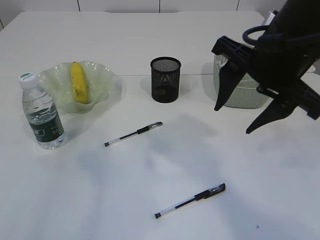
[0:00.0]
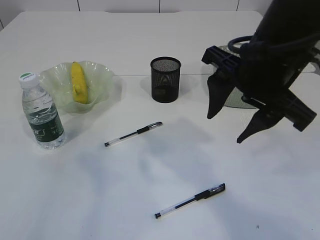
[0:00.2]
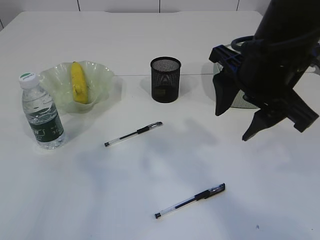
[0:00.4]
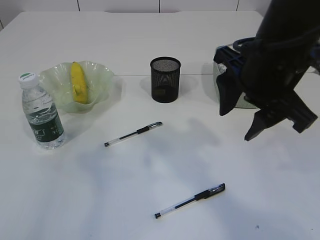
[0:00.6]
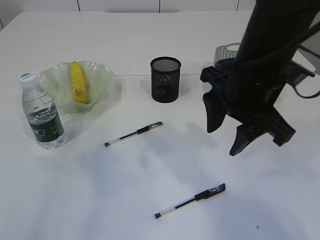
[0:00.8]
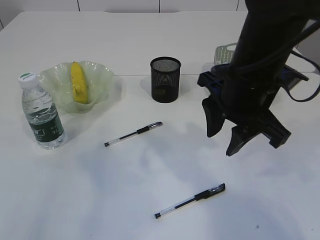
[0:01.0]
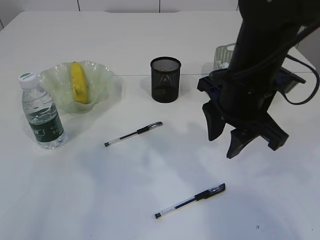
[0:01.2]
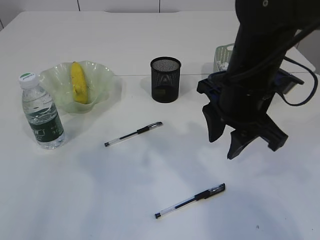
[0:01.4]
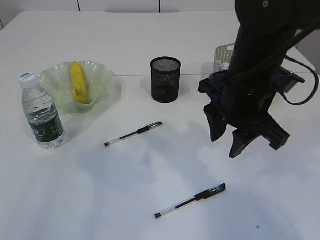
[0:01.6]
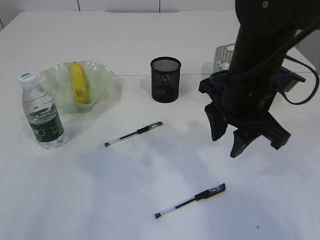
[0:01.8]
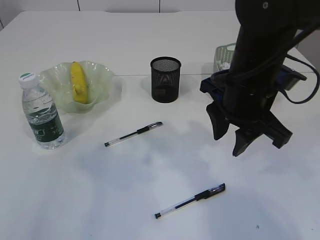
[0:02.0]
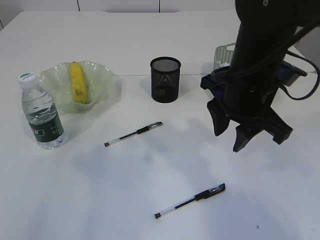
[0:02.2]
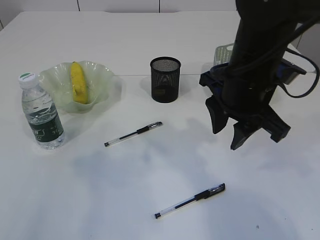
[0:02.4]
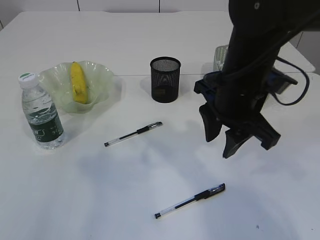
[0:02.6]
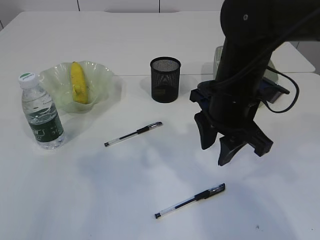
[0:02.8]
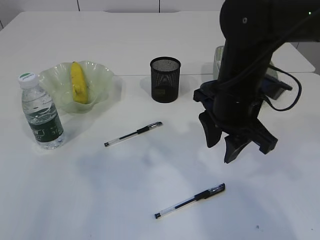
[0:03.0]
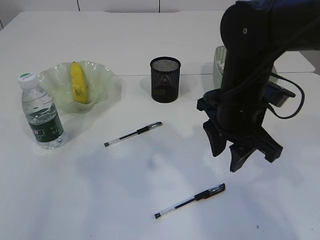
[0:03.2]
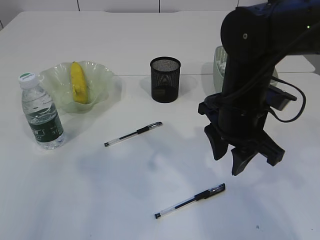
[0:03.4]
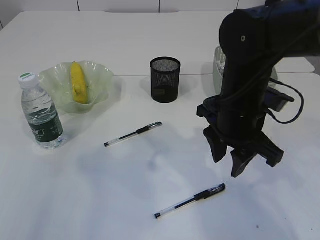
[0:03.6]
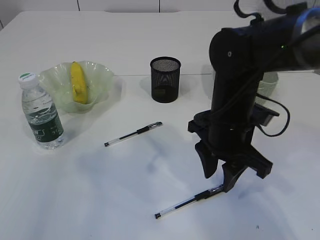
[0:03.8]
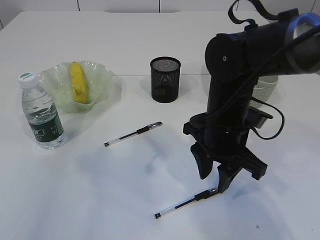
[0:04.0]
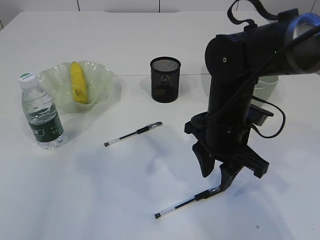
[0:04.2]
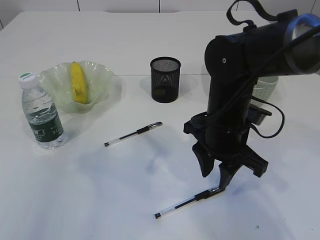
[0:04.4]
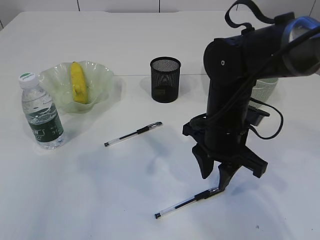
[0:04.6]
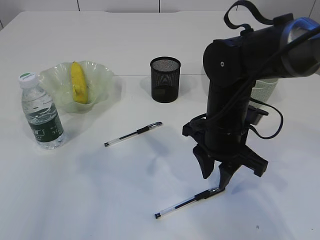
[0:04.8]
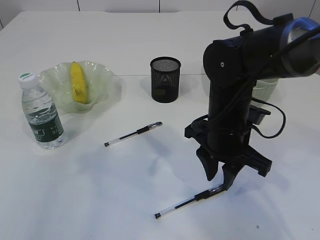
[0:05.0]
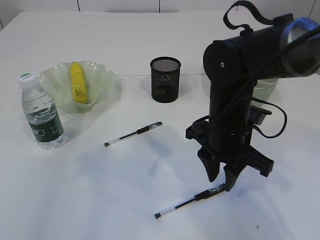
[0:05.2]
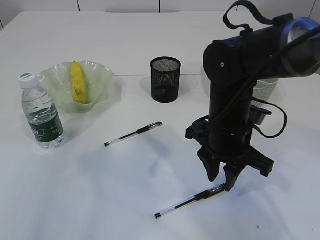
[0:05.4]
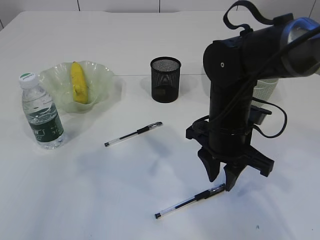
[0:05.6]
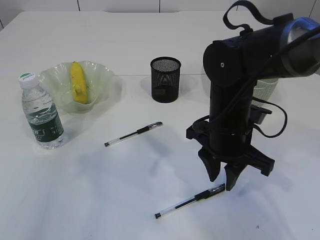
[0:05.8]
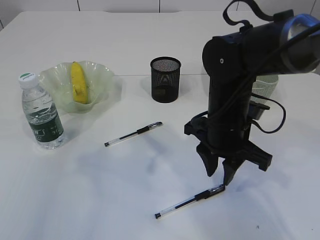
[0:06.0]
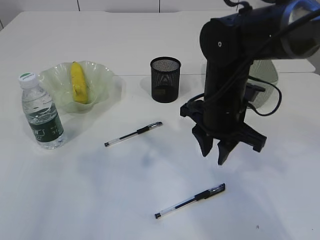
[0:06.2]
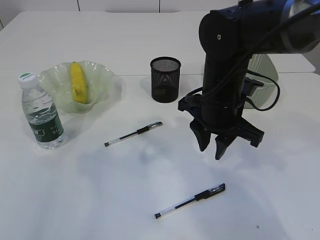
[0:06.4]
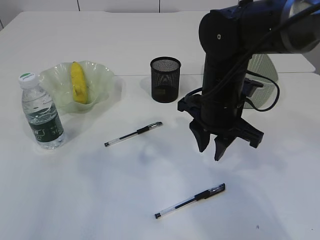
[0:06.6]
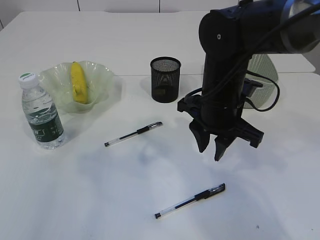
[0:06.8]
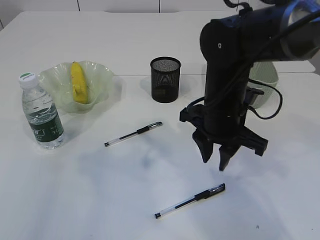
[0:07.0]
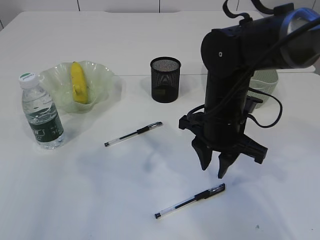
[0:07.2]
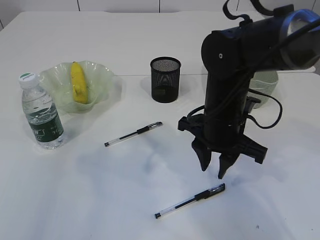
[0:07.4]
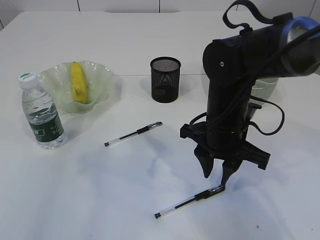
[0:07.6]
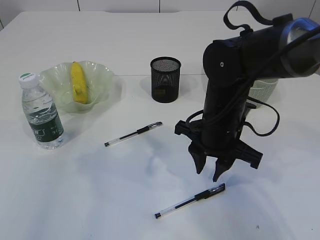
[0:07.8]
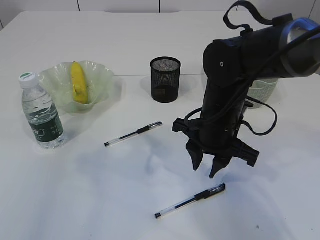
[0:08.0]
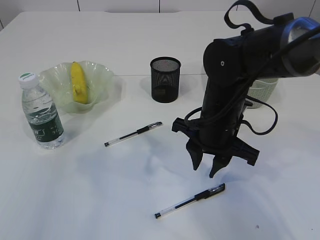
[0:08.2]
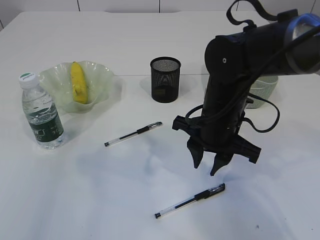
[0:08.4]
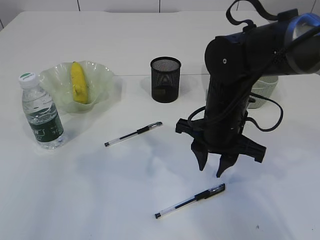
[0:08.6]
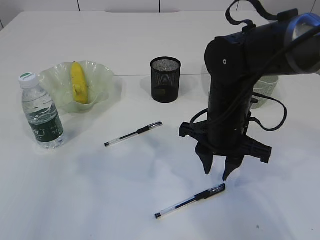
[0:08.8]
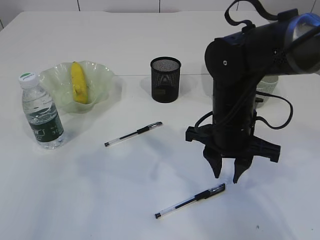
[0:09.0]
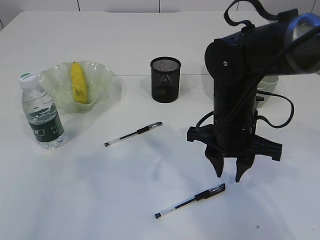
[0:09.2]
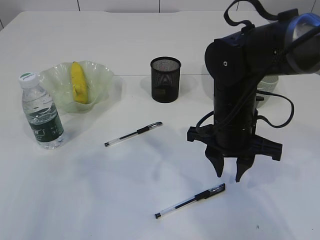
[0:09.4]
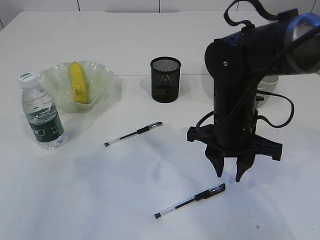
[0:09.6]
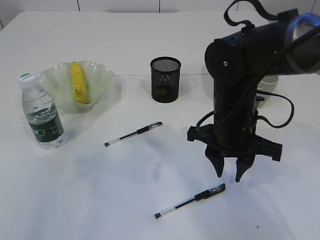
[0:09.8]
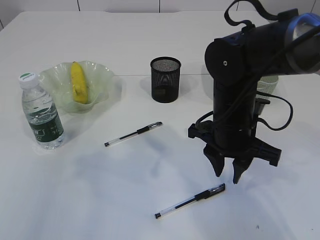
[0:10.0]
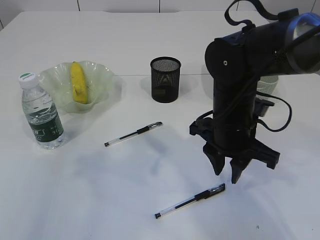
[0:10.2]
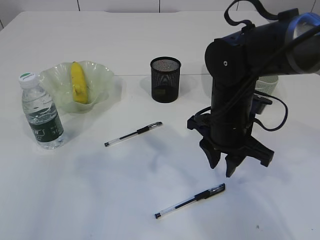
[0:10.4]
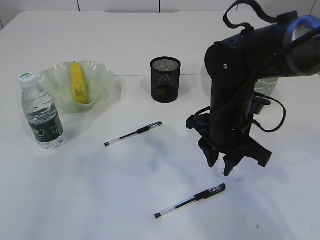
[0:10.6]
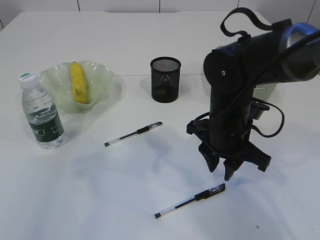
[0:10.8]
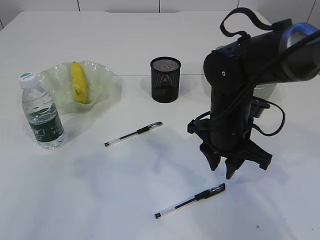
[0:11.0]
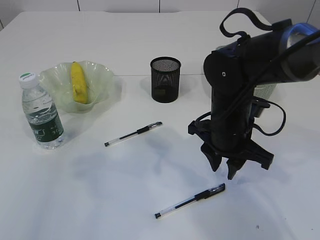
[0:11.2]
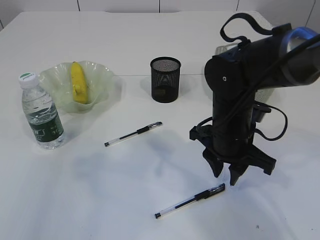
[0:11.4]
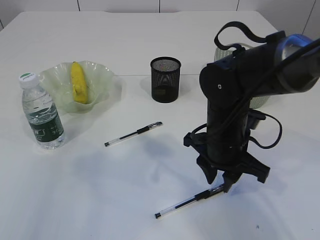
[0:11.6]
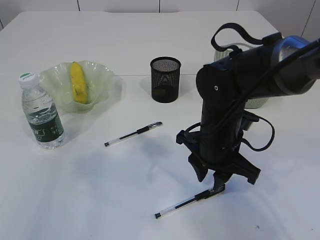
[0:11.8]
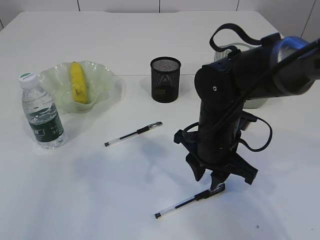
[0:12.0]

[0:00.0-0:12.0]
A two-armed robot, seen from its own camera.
0:00.0 to 0:01.6: The right gripper is displaced downward by approximately 5 cm.
0:01.6 to 0:03.0: There are only small adjustments of the grippers.
0:03.0 to 0:04.4: The right gripper is displaced downward by some 5 cm.
0:04.4 to 0:07.6: The grippers stay close to where they were, moving slightly.
0:07.6 to 0:12.0: There are only small adjustments of the grippers.

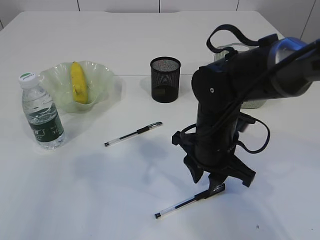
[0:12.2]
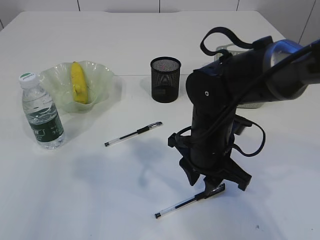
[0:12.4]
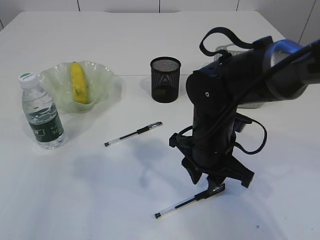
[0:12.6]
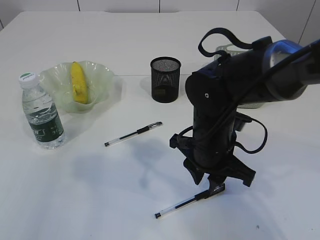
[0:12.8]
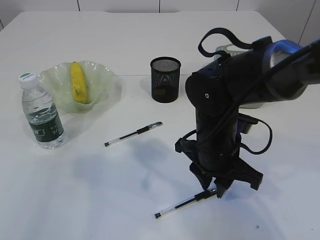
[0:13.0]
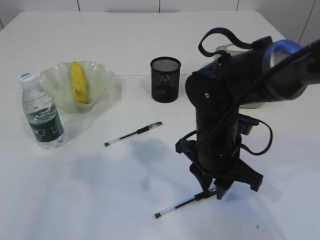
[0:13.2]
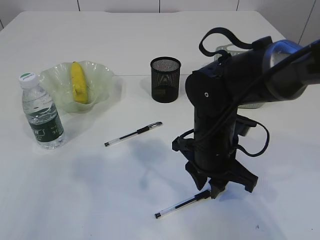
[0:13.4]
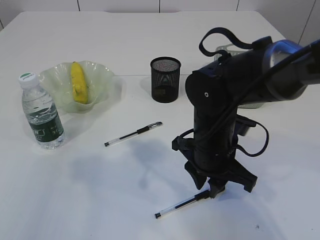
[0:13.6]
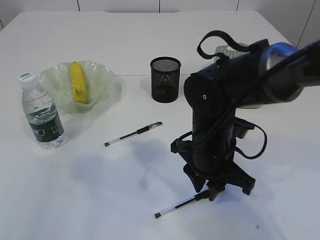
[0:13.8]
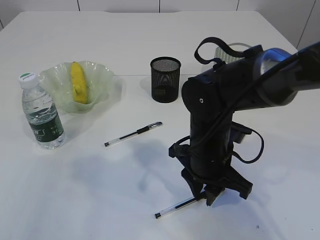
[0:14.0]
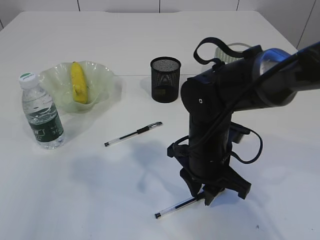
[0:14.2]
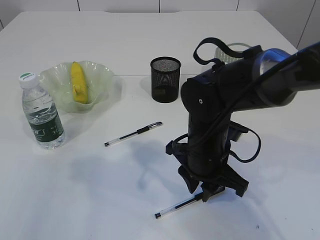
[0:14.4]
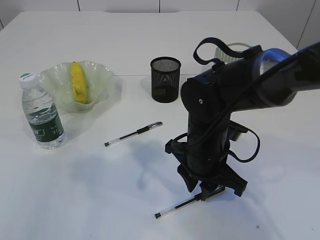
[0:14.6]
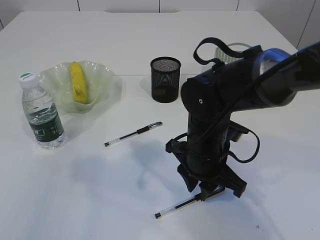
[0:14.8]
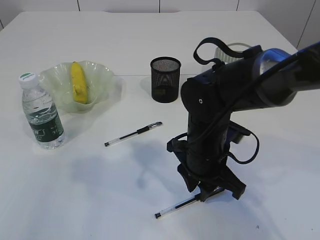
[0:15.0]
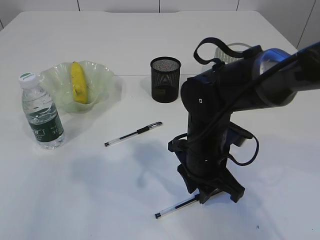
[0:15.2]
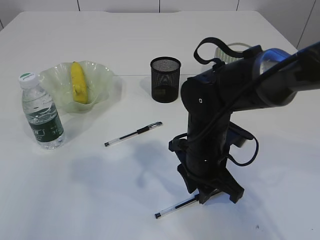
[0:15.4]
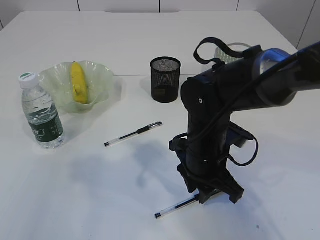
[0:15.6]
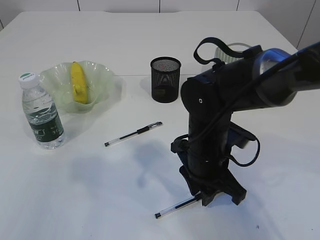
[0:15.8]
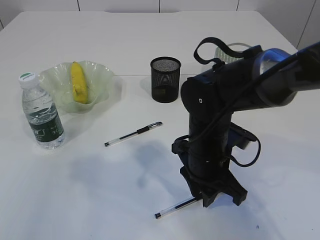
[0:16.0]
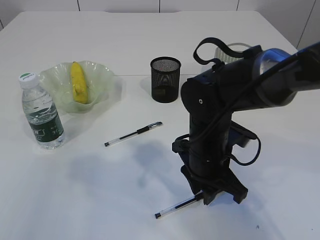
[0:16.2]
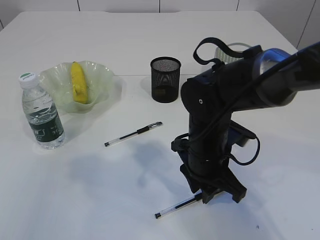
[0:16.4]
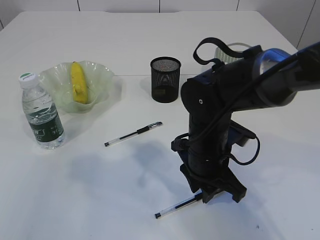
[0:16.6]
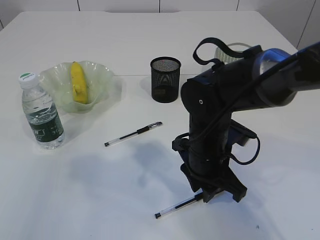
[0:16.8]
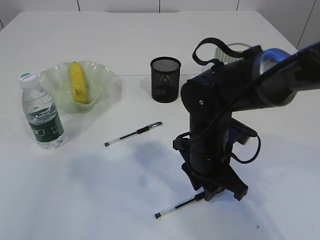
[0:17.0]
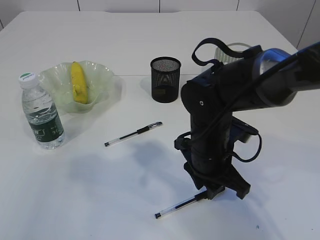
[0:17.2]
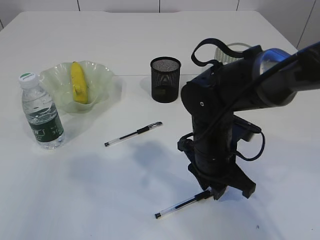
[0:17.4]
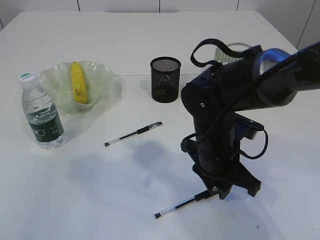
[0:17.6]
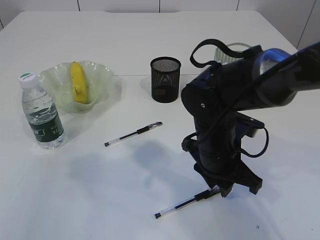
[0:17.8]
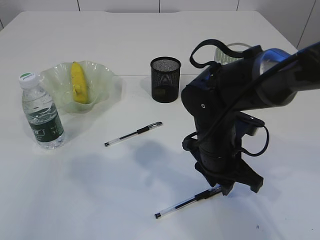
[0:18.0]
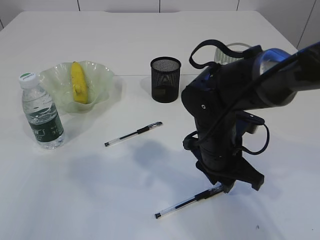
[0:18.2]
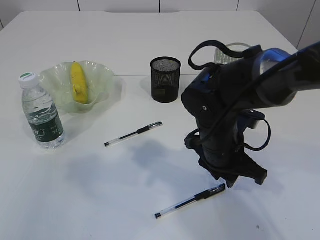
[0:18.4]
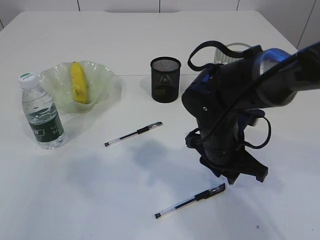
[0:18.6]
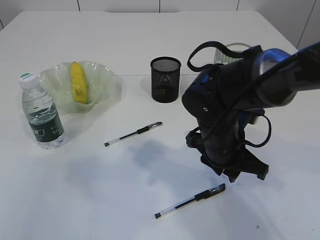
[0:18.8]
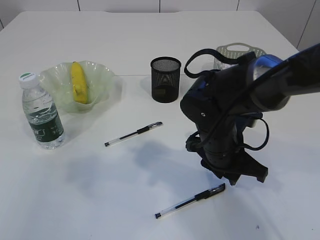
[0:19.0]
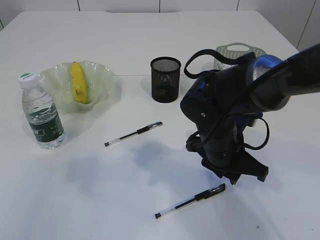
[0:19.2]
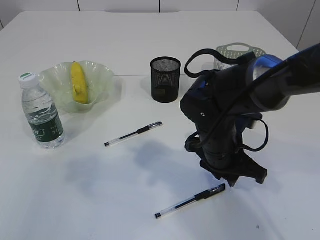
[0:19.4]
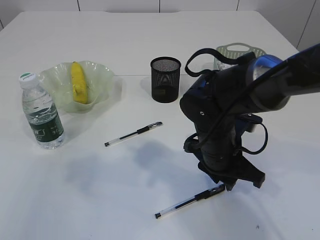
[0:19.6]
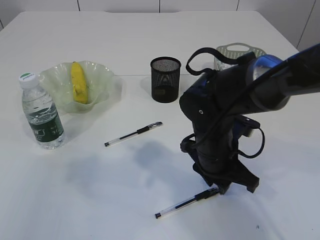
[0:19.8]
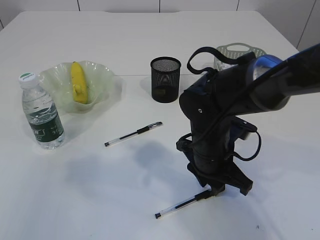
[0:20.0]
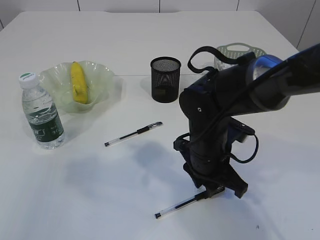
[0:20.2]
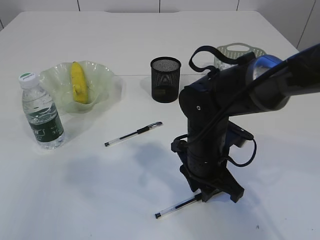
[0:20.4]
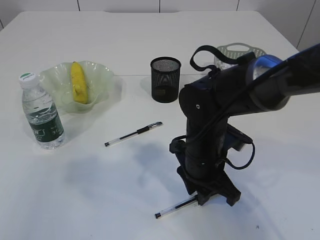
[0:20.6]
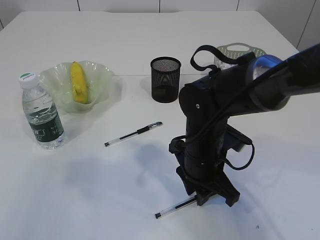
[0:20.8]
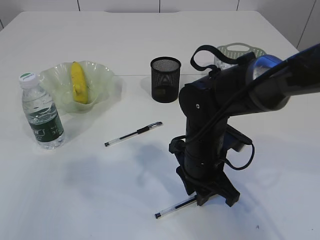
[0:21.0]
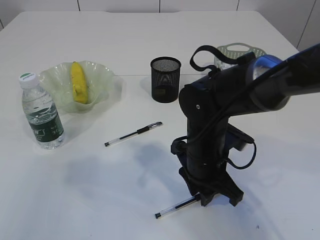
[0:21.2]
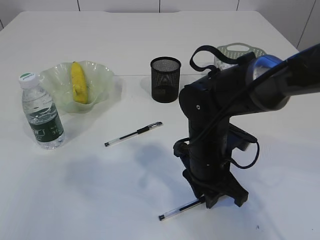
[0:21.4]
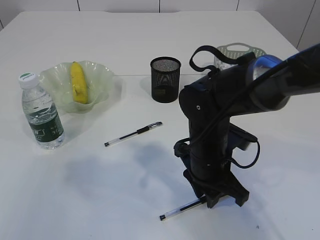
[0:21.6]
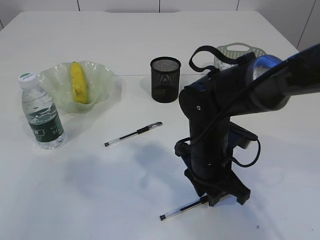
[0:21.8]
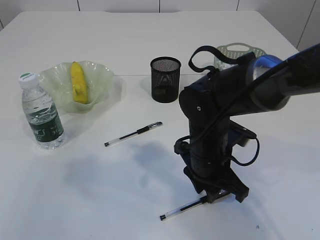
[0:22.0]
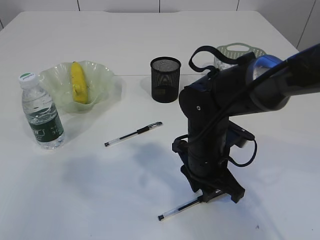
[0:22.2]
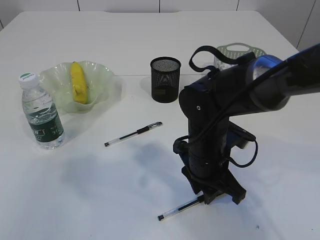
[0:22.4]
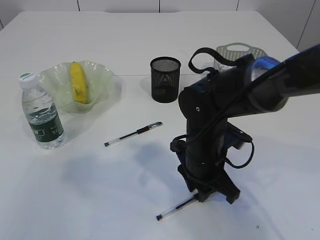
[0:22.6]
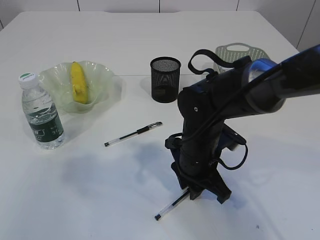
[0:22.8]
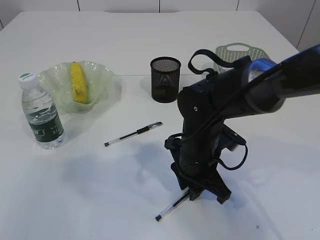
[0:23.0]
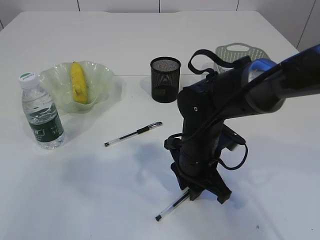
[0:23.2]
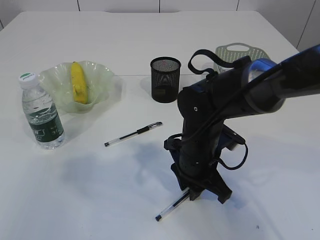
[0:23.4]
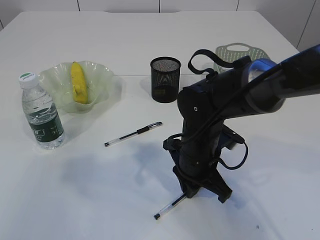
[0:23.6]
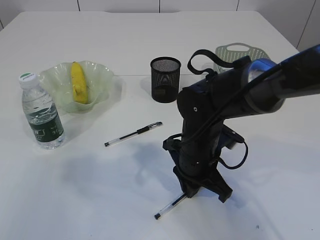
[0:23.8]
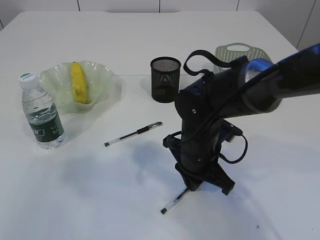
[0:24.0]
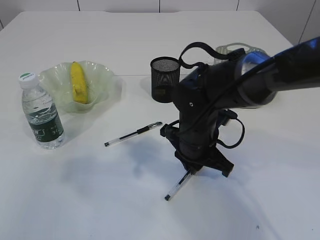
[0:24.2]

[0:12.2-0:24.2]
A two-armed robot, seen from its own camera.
0:12.2 to 0:15.2: The grippers make only small movements.
0:15.2 to 0:16.6: Both grippers stay about where they are.
0:16.6 to 0:18.2: The grippers move only a little.
0:18.2 to 0:24.2: There are only small adjustments of the grippers.
